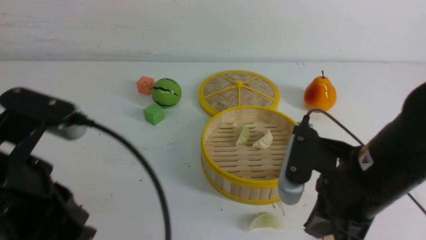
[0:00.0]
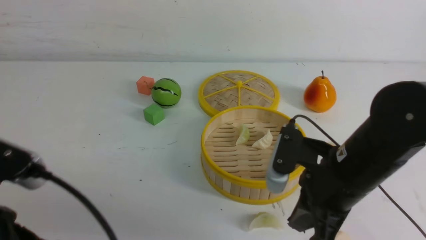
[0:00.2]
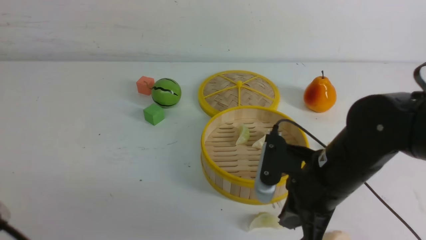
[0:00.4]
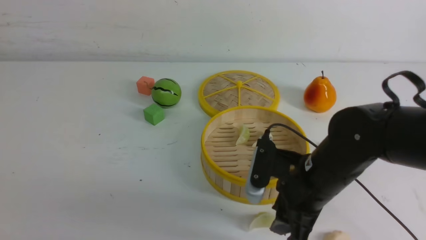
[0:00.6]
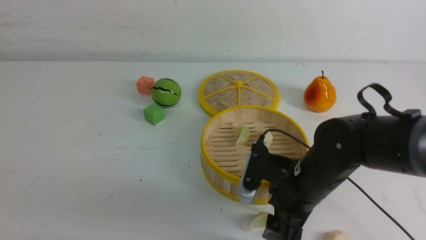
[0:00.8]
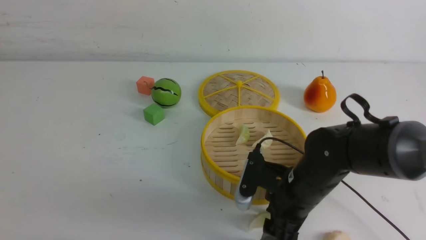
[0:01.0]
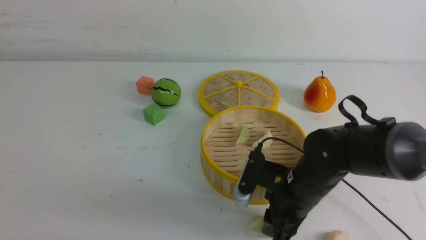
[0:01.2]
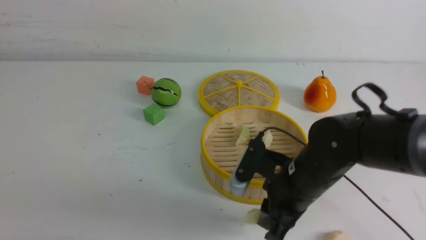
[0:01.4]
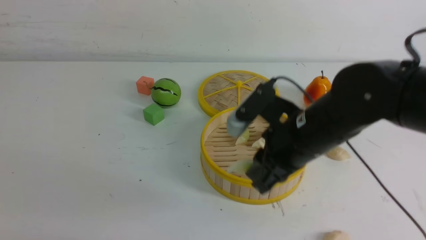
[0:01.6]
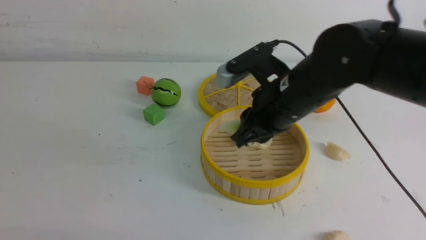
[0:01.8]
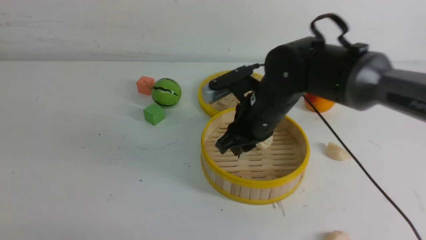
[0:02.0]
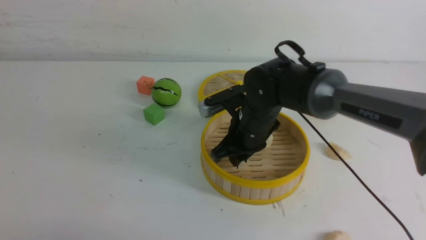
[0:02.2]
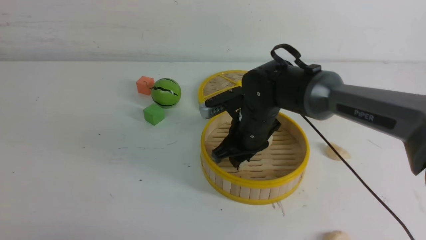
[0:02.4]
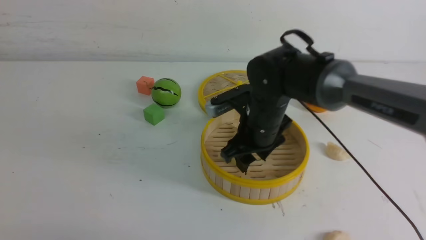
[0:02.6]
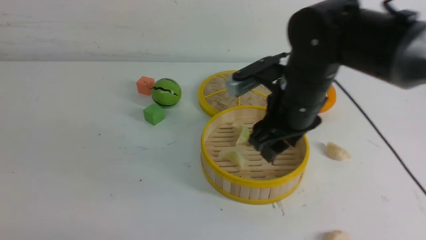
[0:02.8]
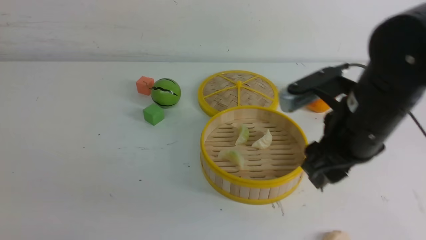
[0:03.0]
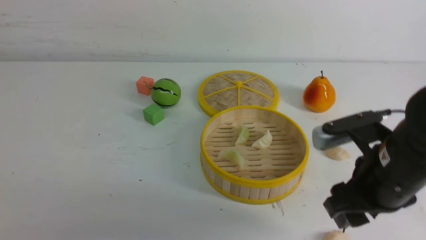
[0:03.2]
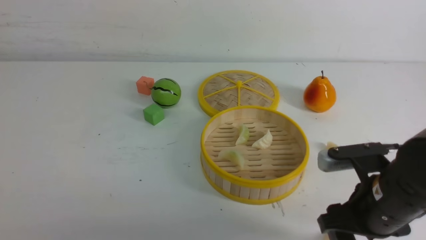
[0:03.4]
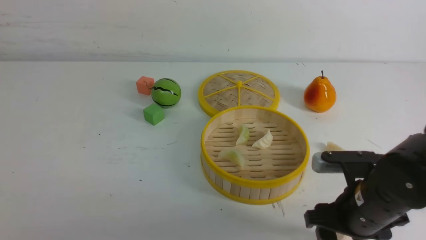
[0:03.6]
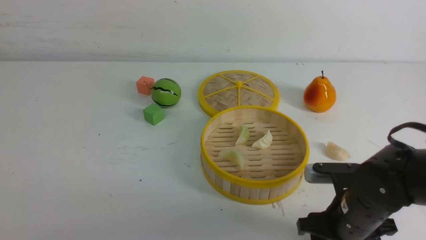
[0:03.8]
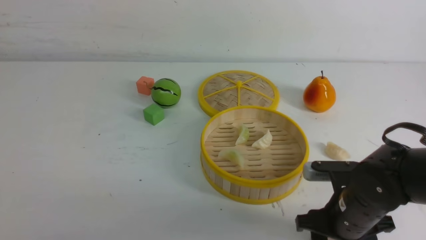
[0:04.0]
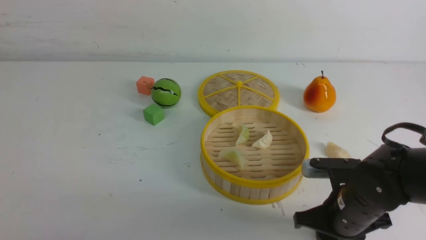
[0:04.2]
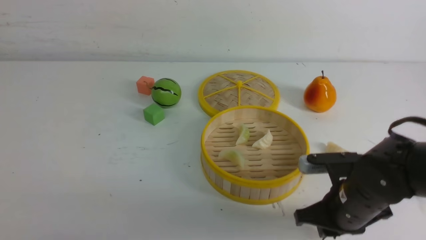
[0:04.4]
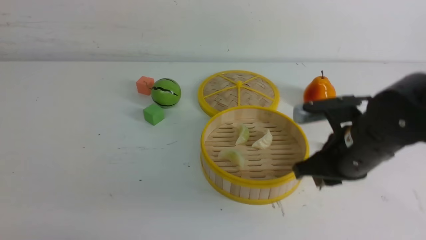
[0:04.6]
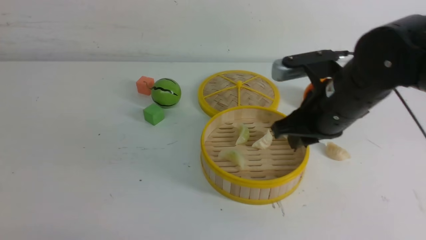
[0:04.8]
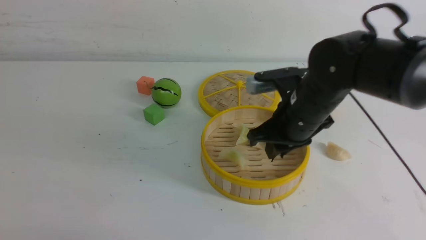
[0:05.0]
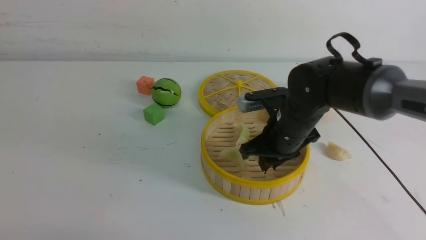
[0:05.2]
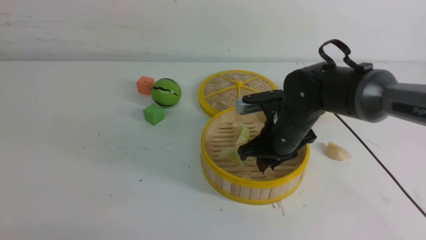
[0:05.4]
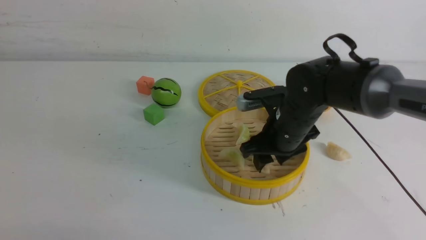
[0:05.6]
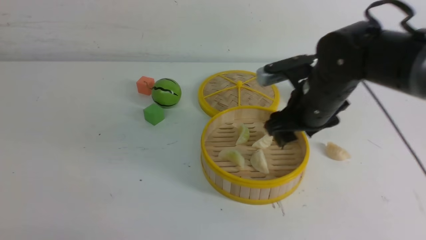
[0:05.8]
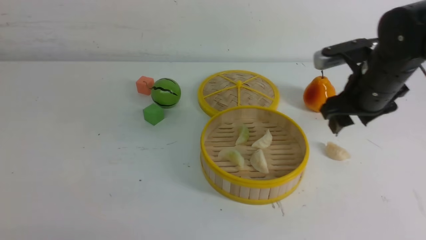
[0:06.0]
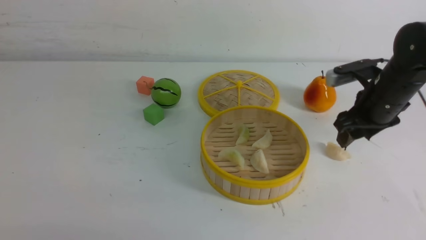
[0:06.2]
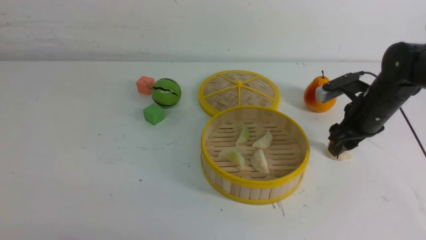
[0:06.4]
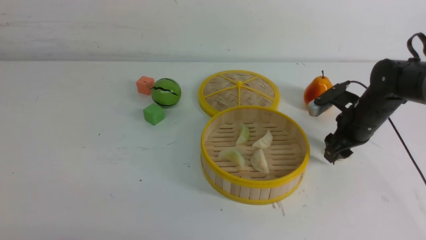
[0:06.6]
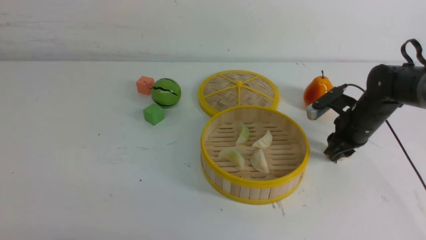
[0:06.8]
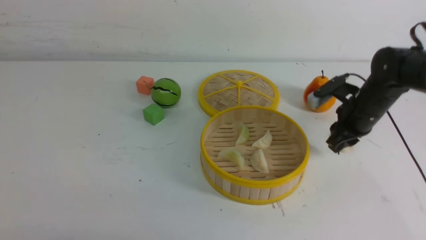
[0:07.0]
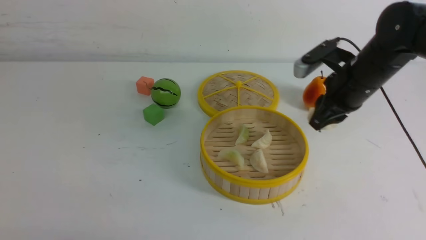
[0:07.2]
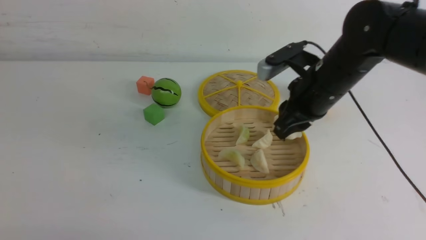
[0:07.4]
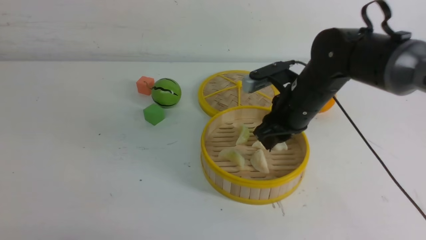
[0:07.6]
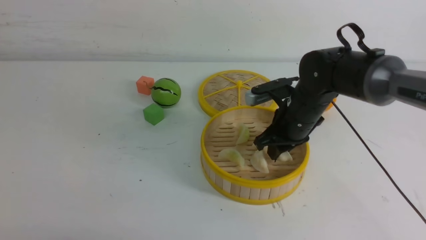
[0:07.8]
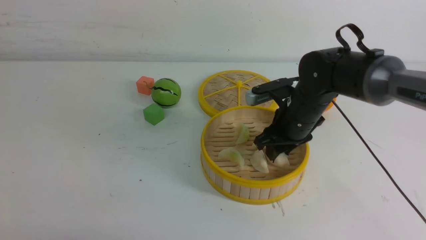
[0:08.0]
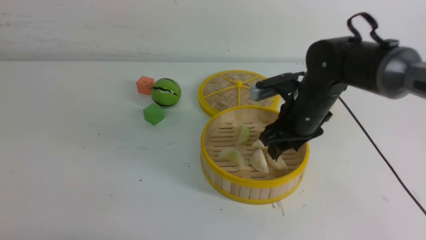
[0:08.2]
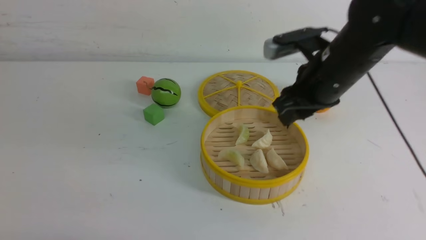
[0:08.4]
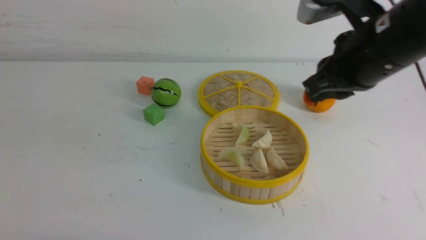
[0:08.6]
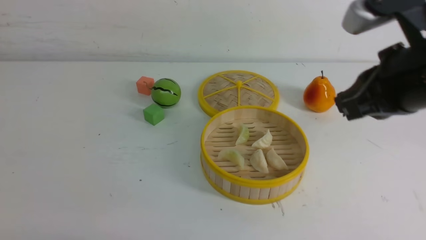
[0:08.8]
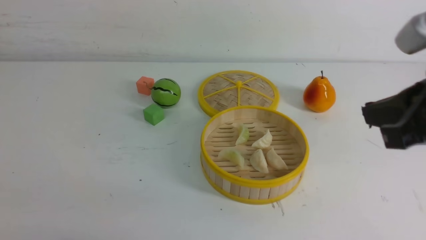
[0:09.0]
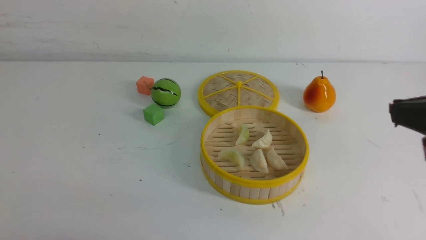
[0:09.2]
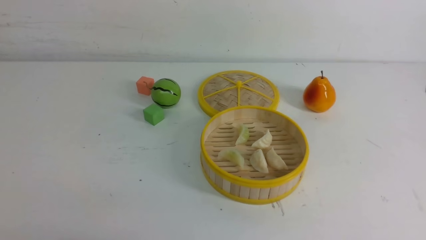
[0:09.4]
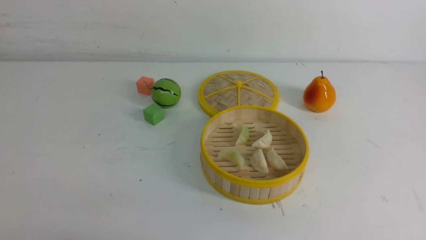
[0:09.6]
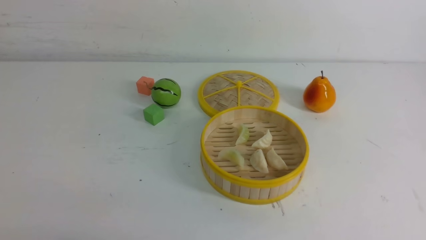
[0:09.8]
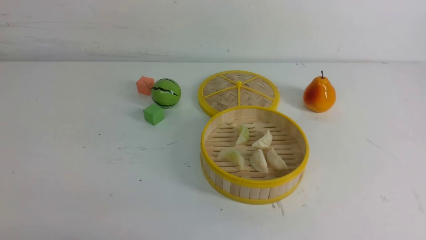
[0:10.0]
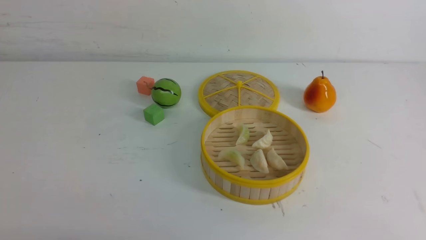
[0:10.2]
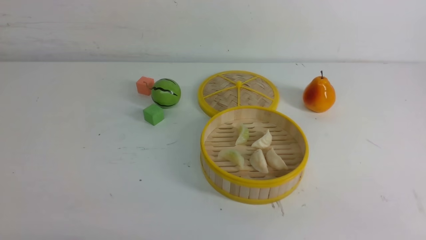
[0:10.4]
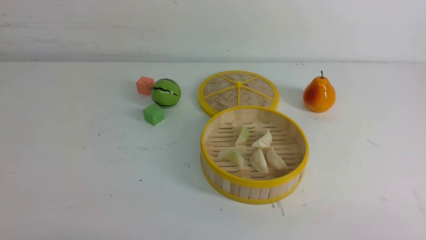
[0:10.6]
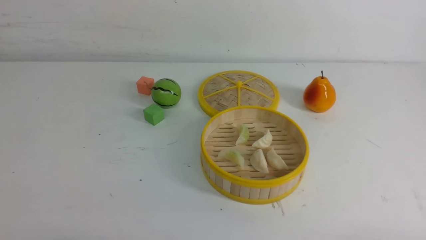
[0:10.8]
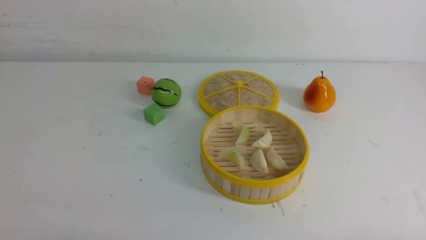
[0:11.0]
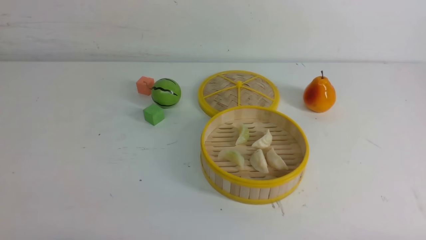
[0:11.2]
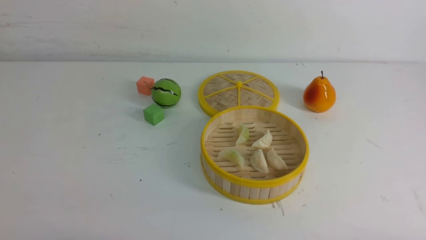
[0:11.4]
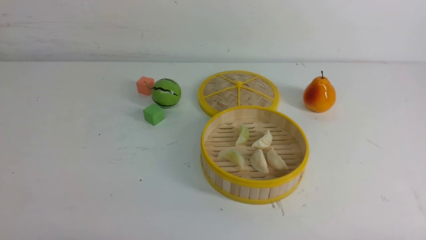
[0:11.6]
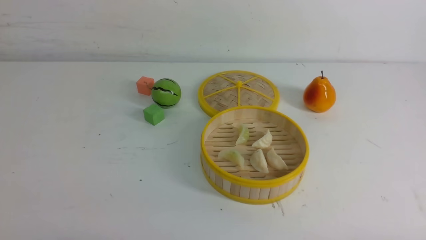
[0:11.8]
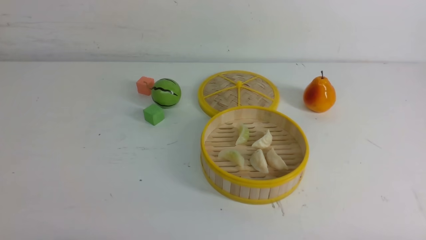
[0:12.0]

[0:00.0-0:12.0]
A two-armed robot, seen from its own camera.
Task of the whole recording: put the dumplings into the steamer on the white table.
Step, 0:00.0 to 0:01.2: use the right arm to grab a dumpling.
Step, 0:01.4 to 0:02.4: use the right arm to put the dumpling into the steamer.
Step, 0:02.6 to 0:04.2: use the right arm to grab a dumpling.
Step, 0:04.4 to 0:05.6: use the right arm to put the dumpling into the steamer.
Step, 0:05.8 to 0:06.8: use the right arm to grab a dumpling.
Step, 0:07.0 to 0:08.0: use the right arm to put the dumpling into the steamer.
0:00.0 to 0:01.6: The right gripper moves forward and to the left, some 10 cm, travels downward and back again, approximately 10 cm each way, and opens up. Meanwhile the left gripper goes roughly 10 cm backward, downward and to the left.
0:01.6 to 0:03.0: The right gripper travels to the right by about 5 cm, moves about 10 cm forward and comes back, and opens up.
0:03.0 to 0:04.4: The right gripper travels downward by some 10 cm, and closes up.
0:04.4 to 0:06.0: The right gripper is displaced forward and upward by roughly 15 cm, and opens its fingers.
0:06.0 to 0:07.6: The right gripper moves to the left, some 10 cm, and closes.
0:07.6 to 0:09.0: The right gripper heads backward, upward and to the right, covering some 25 cm, and closes up.
0:09.0 to 0:10.4: The right gripper heads downward, backward and to the right, covering roughly 15 cm.

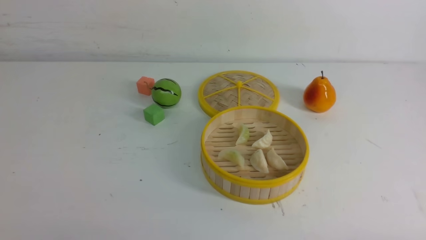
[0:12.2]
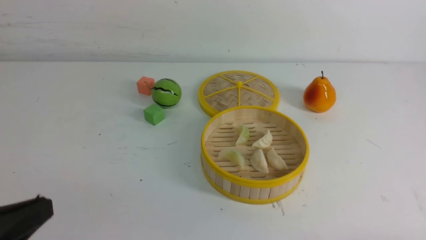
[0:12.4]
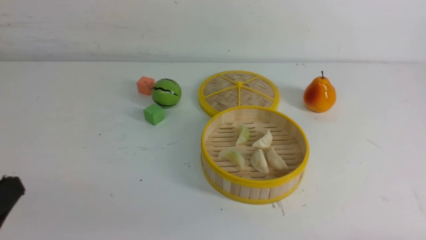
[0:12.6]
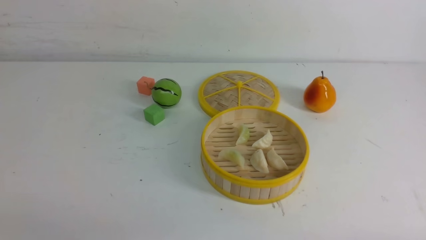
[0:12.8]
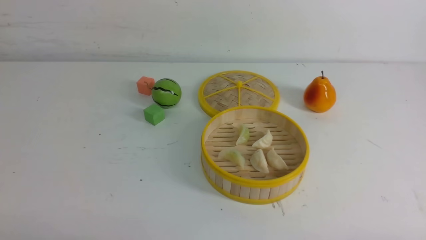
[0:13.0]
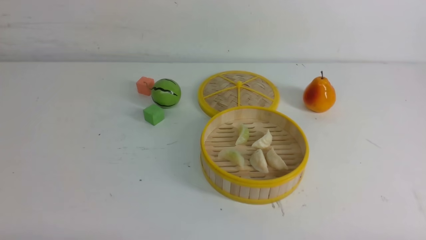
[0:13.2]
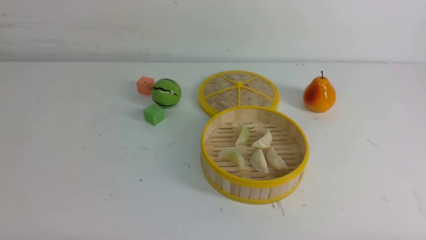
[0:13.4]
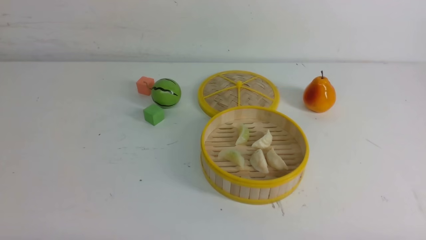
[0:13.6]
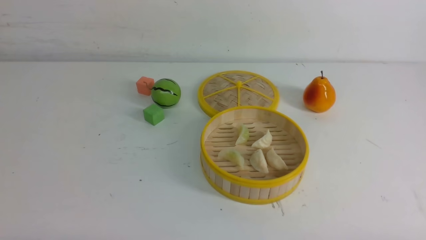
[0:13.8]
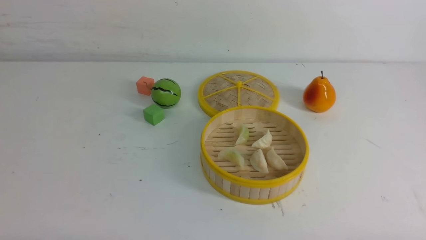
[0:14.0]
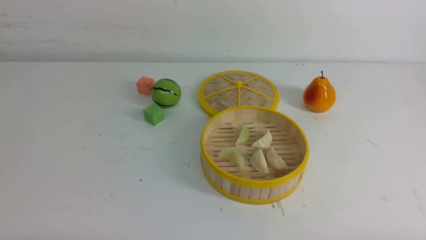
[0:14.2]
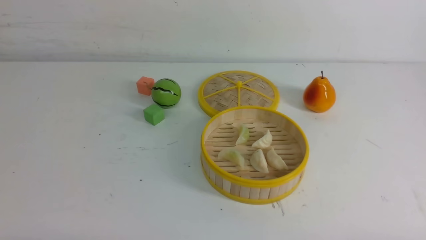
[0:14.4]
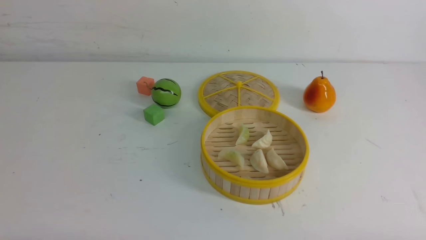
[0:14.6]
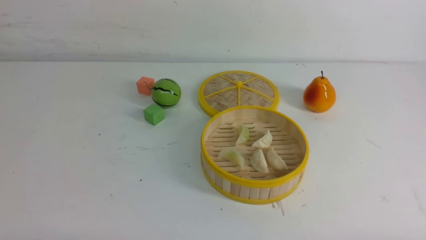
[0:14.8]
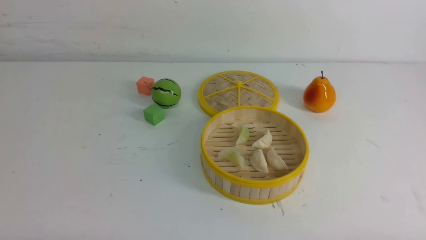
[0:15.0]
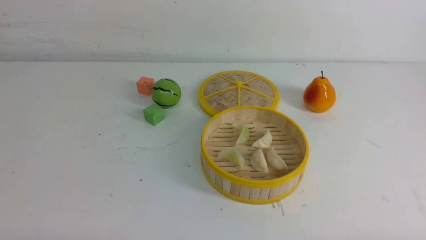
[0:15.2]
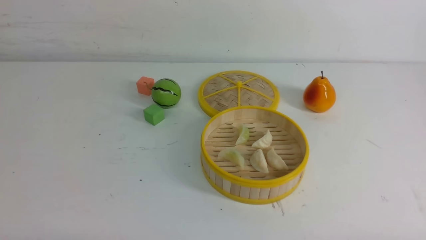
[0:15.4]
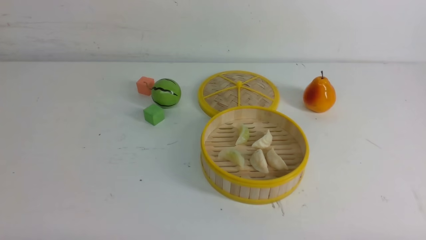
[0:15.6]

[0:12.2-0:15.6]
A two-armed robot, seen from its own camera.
Task of the whole recording: put the dumplings into the steamer on the white table.
0:13.8 to 0:15.6: Neither gripper changes place.
